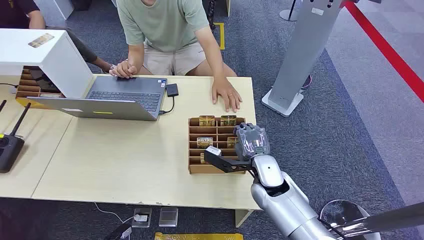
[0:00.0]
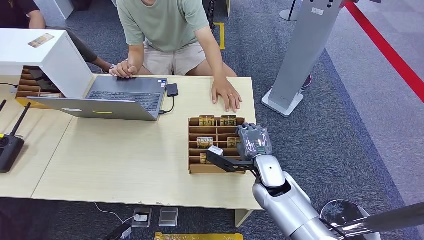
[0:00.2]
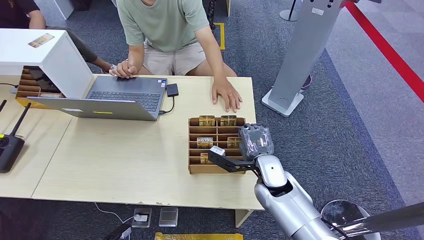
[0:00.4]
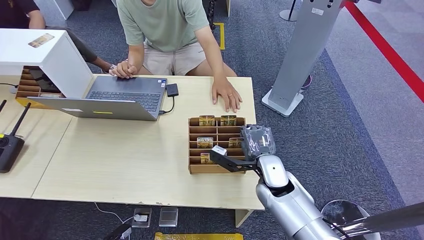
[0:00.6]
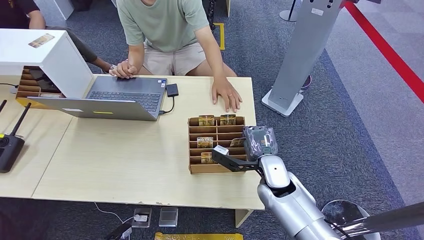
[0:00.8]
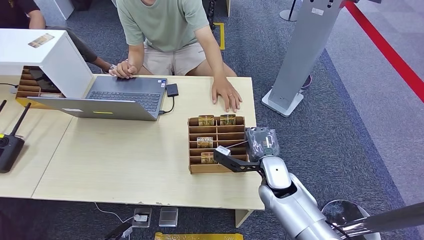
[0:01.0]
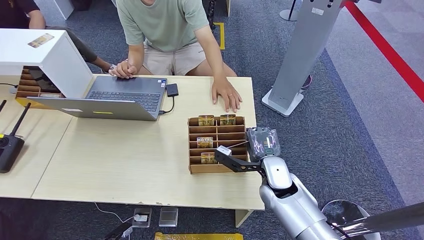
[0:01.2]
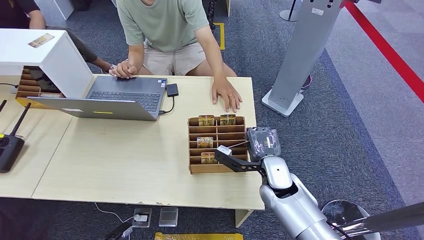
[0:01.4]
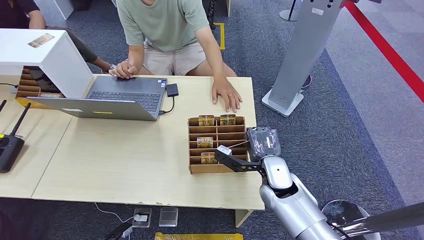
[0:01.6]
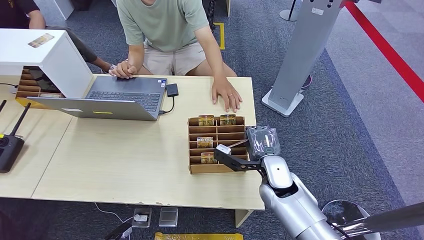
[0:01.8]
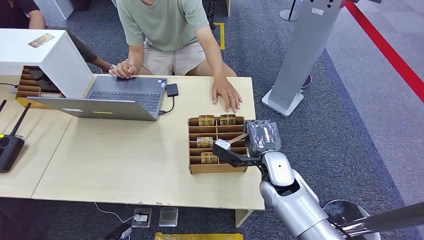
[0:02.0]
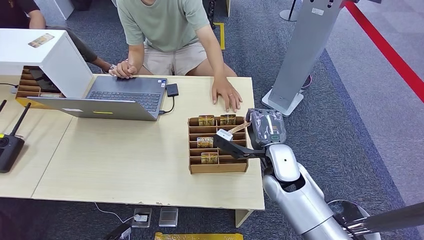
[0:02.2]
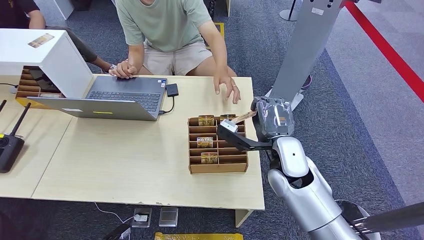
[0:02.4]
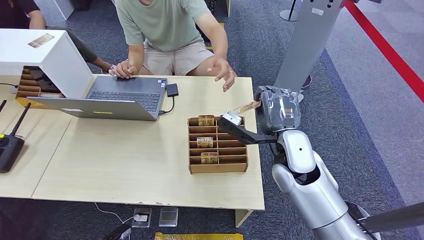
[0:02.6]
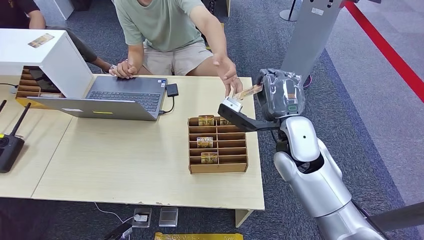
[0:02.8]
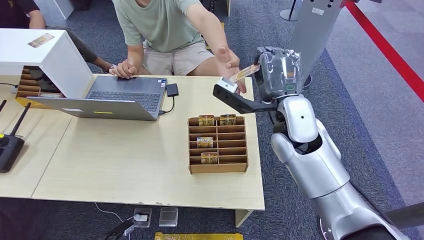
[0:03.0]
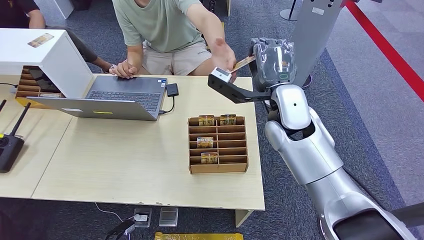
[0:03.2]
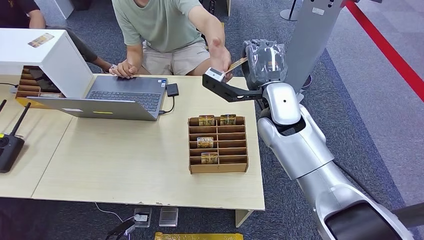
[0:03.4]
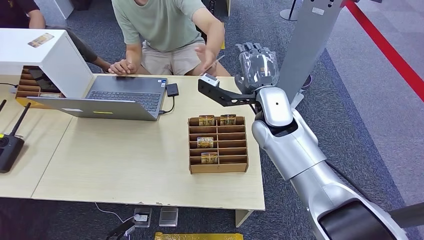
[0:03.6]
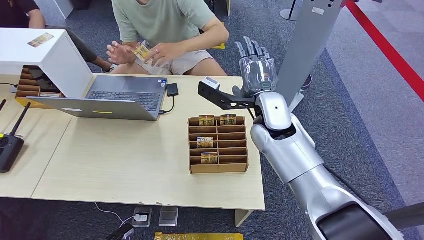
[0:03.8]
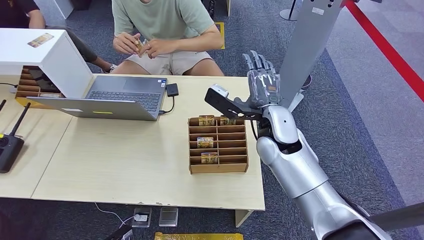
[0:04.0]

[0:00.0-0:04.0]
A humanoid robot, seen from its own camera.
Step, 0:00.0 to 0:02.2: Pick up the key card from the card box.
Step, 0:03.0 to 0:04.0: Hand the key card to the target.
0:01.4 to 0:02.6: The right hand travels upward by about 10 cm.
0:02.6 to 0:04.0: The right hand goes upward and returns, approximately 10 cm each way.

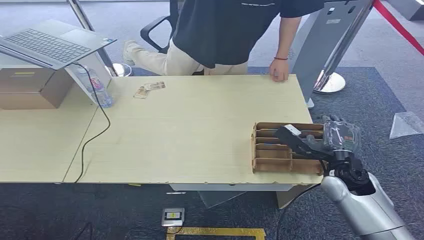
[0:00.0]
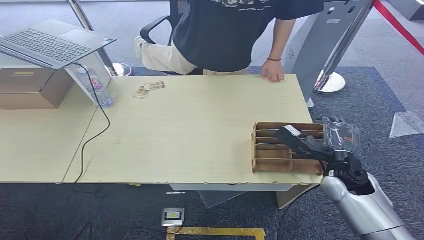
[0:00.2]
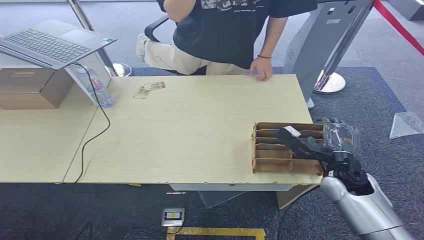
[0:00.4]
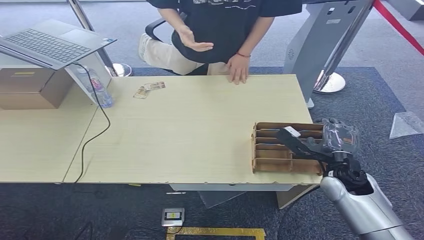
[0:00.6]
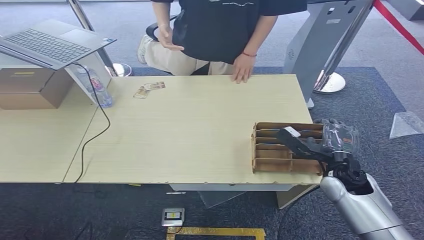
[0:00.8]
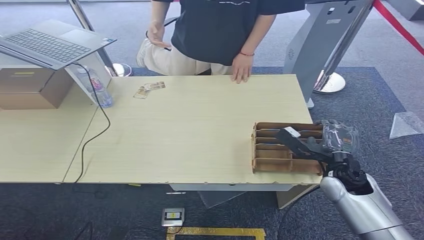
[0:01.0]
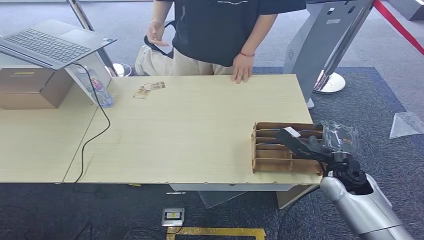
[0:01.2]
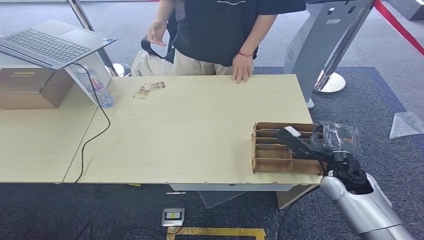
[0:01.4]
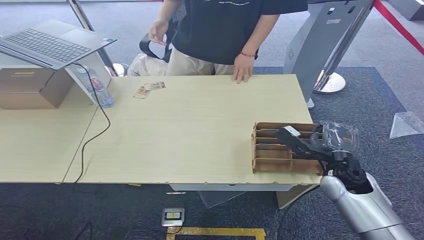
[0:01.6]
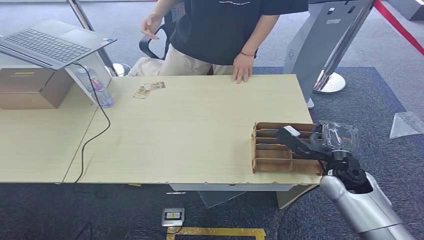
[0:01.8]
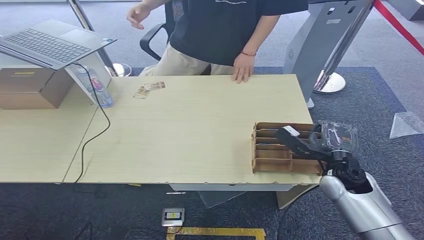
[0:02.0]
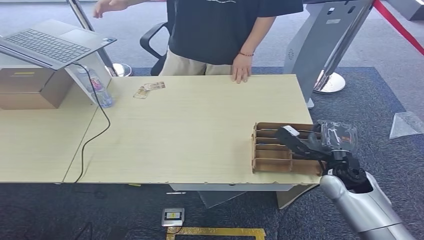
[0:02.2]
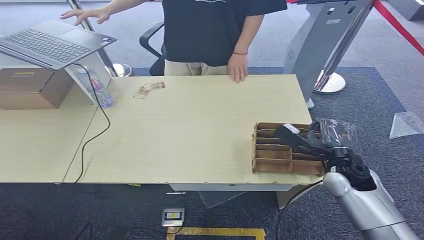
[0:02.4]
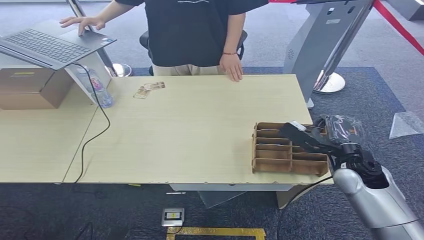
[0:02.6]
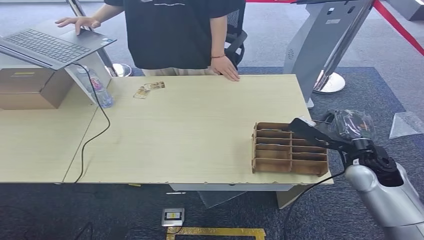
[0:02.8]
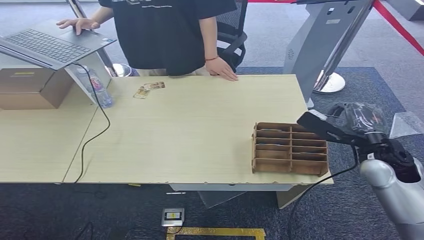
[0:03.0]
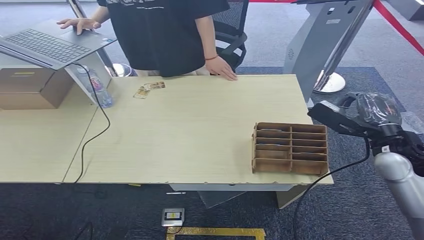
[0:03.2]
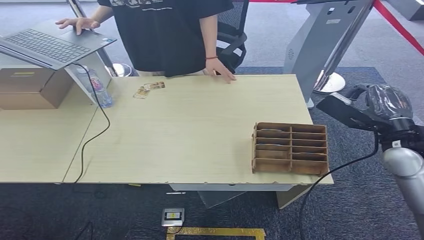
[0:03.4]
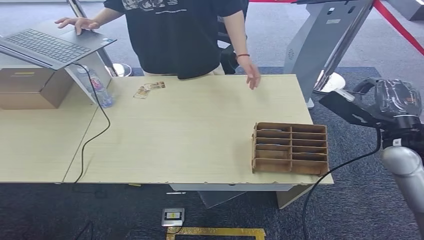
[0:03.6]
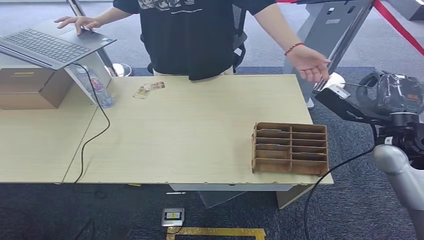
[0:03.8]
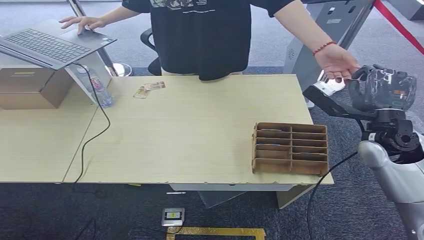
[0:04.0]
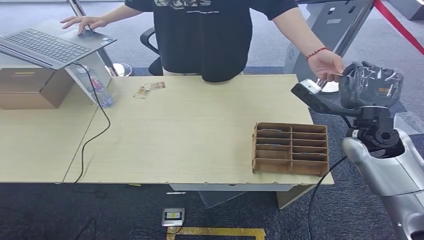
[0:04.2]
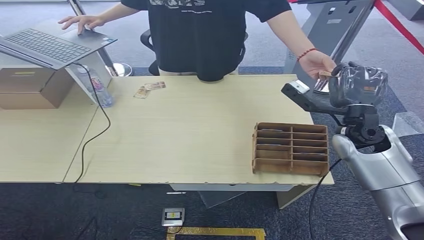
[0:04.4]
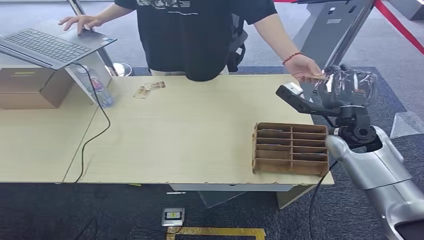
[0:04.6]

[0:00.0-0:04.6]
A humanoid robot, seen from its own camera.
Step, 0:00.0 to 0:03.0: Pick up the key card from the card box.
Step, 0:03.4 to 0:04.4: Hand the key card to the target.
0:01.6 to 0:03.0: The right hand travels upward by some 10 cm.
0:03.0 to 0:04.6: The right hand moves forward and to the left, roughly 10 cm.
